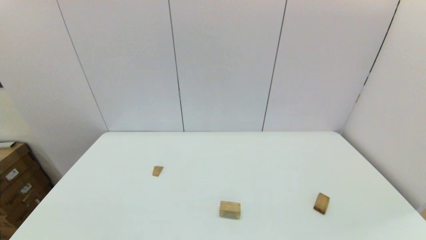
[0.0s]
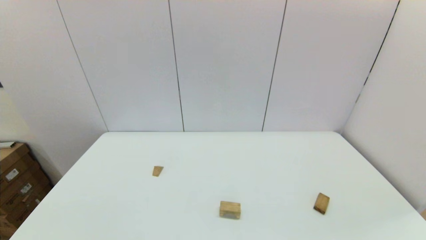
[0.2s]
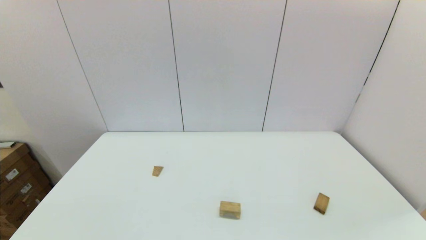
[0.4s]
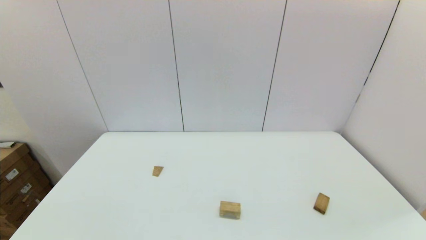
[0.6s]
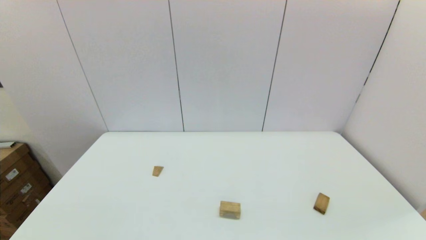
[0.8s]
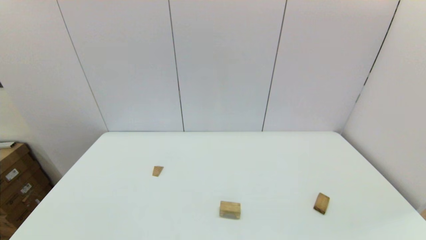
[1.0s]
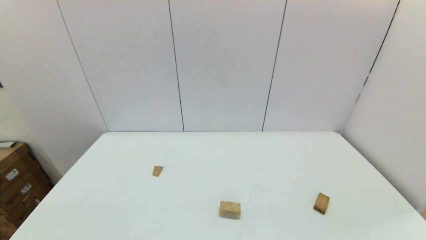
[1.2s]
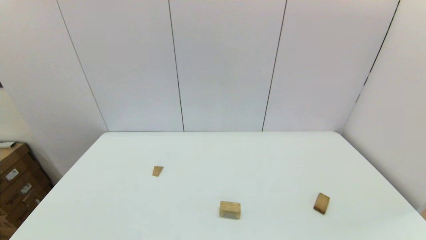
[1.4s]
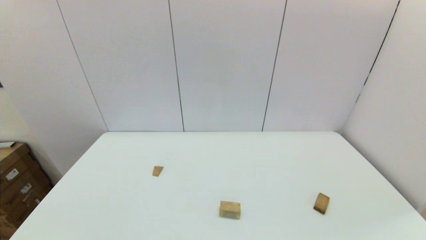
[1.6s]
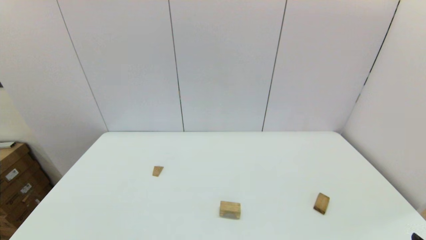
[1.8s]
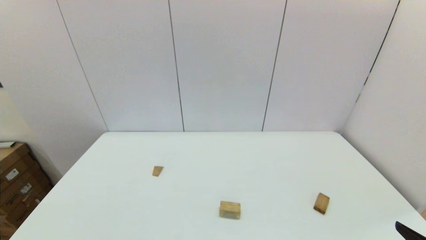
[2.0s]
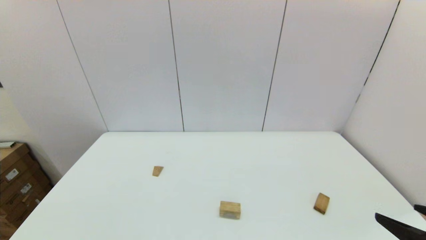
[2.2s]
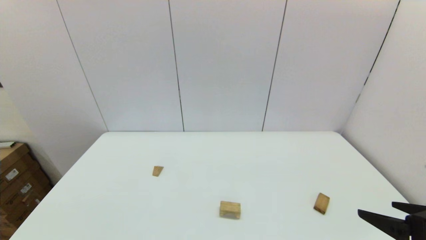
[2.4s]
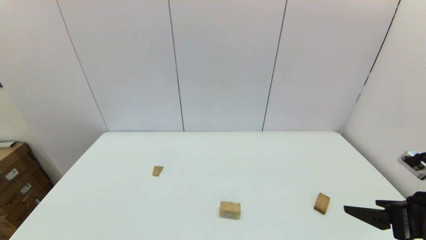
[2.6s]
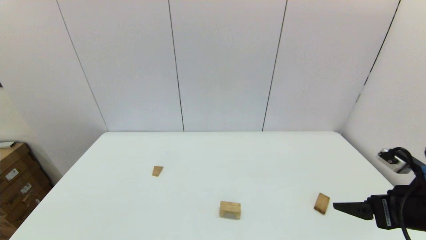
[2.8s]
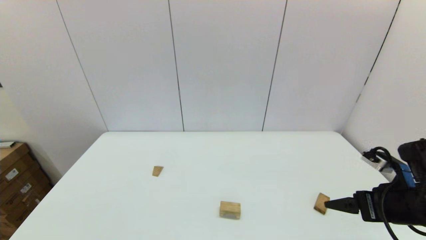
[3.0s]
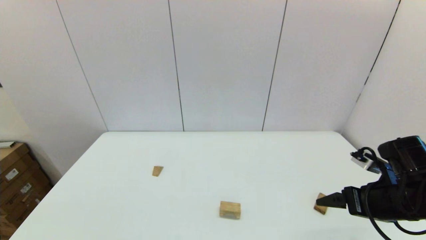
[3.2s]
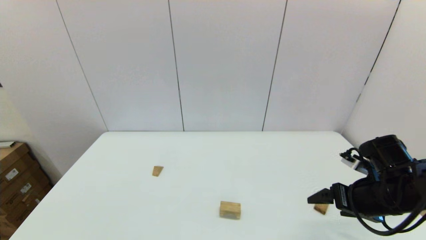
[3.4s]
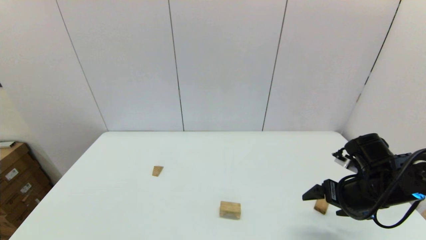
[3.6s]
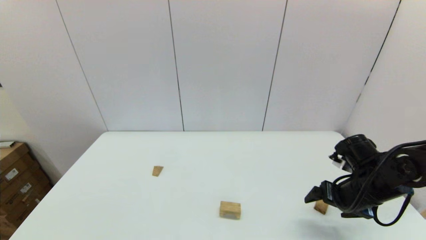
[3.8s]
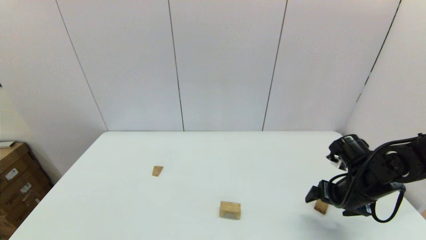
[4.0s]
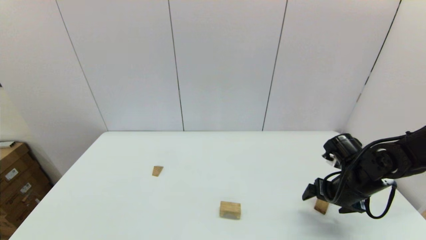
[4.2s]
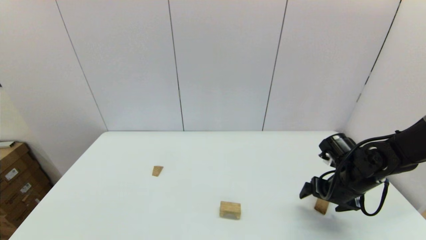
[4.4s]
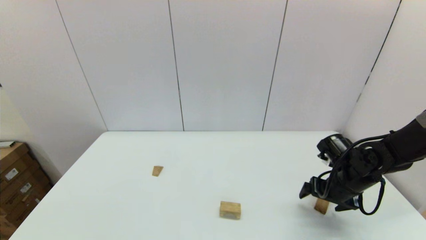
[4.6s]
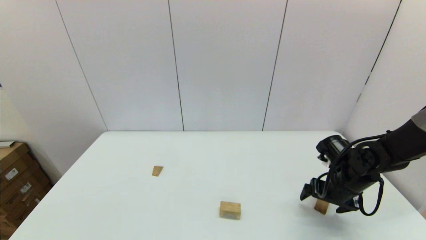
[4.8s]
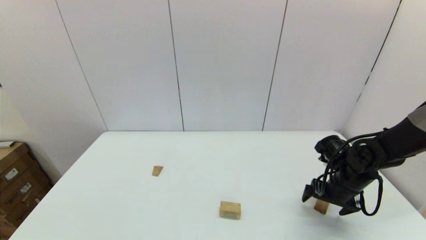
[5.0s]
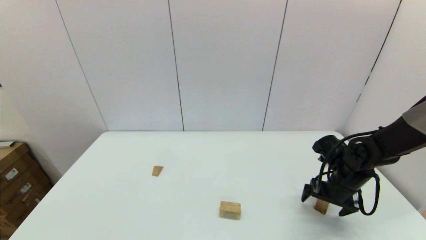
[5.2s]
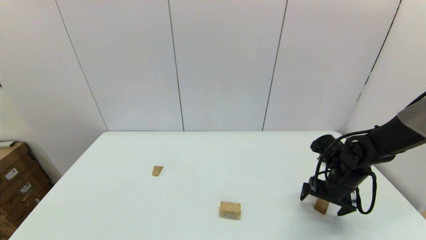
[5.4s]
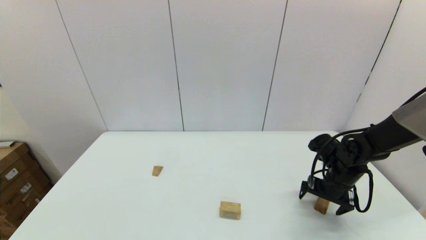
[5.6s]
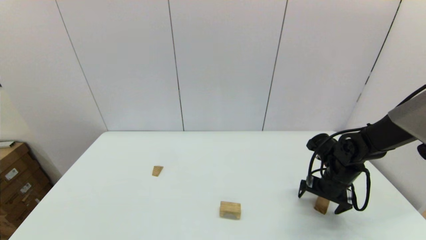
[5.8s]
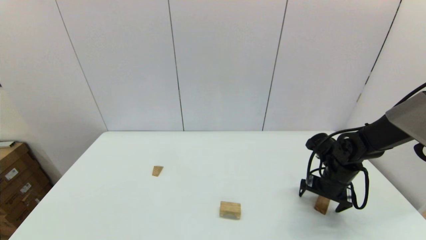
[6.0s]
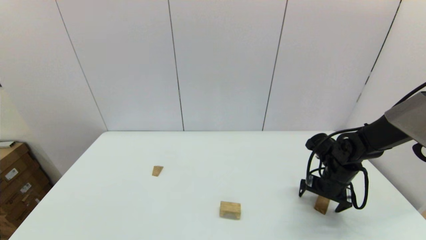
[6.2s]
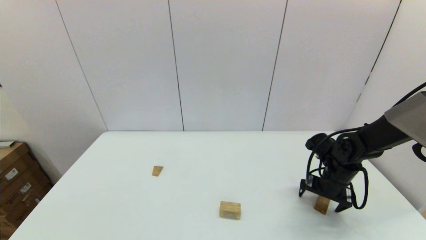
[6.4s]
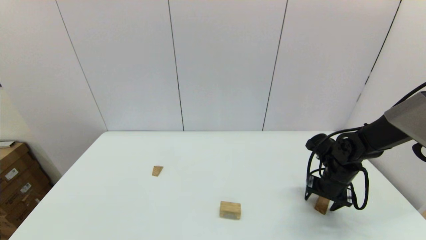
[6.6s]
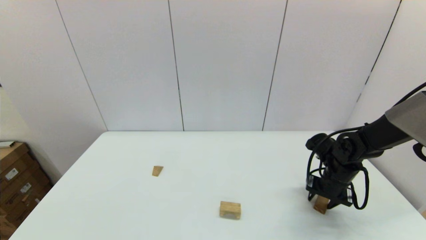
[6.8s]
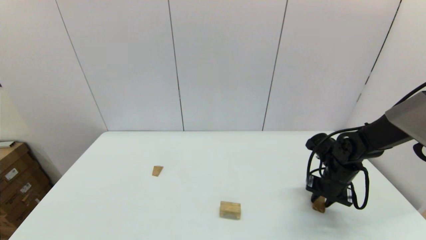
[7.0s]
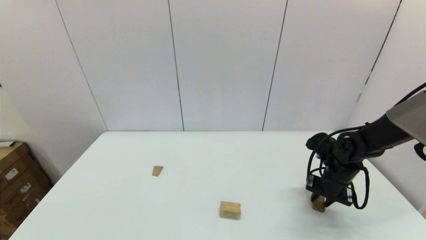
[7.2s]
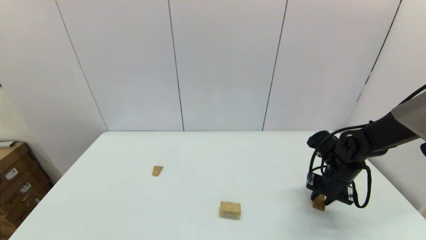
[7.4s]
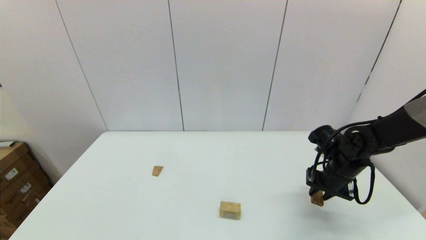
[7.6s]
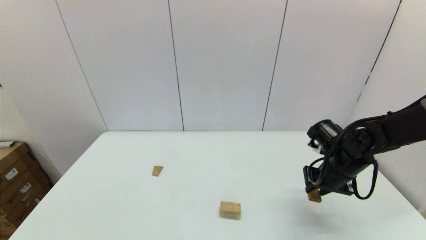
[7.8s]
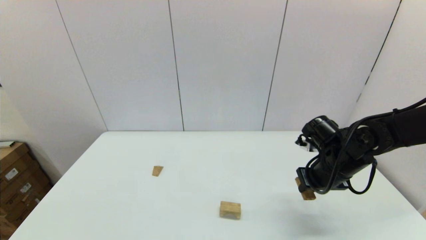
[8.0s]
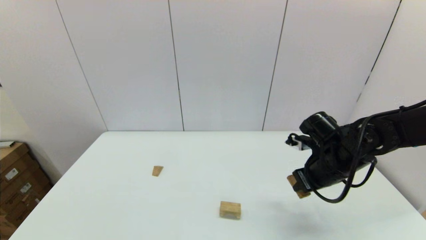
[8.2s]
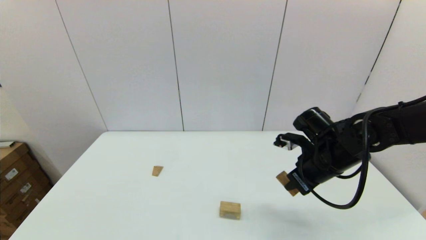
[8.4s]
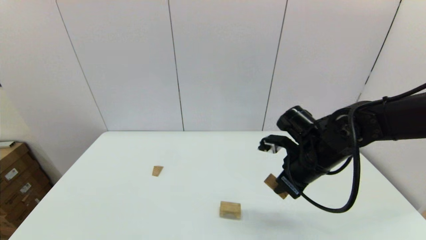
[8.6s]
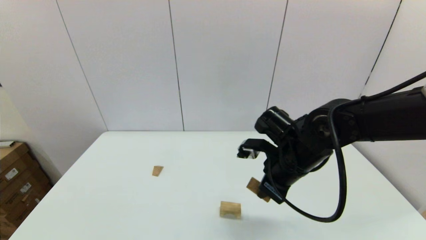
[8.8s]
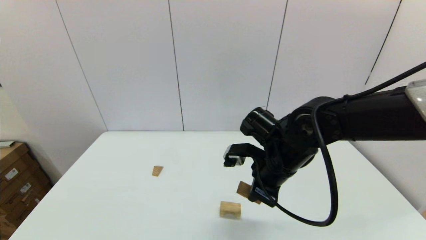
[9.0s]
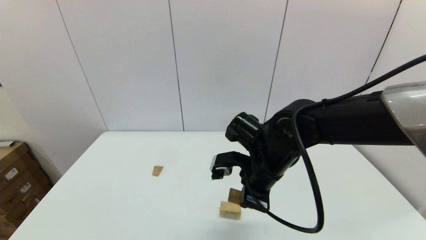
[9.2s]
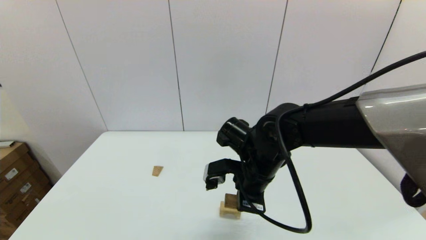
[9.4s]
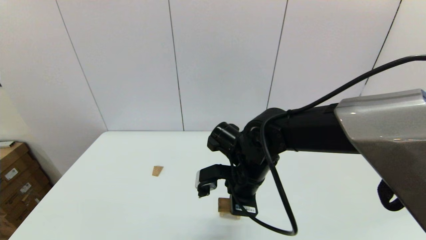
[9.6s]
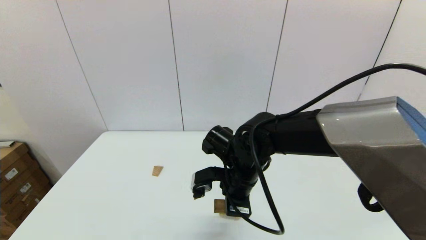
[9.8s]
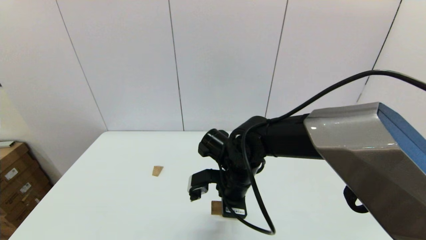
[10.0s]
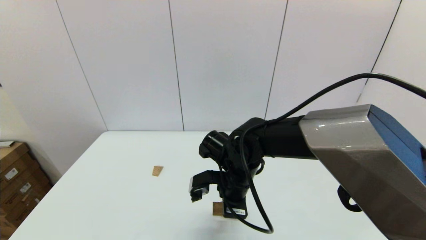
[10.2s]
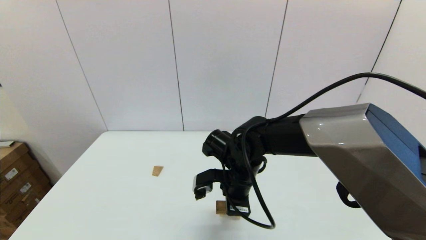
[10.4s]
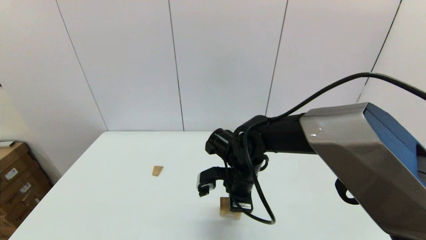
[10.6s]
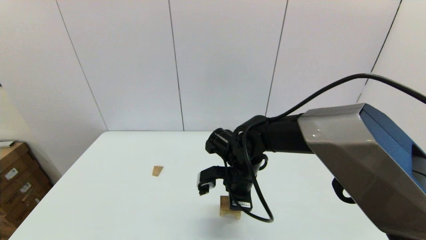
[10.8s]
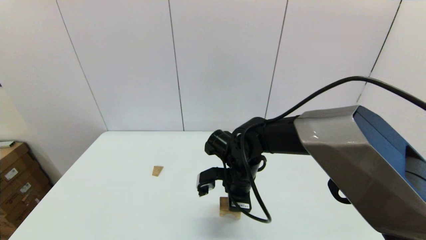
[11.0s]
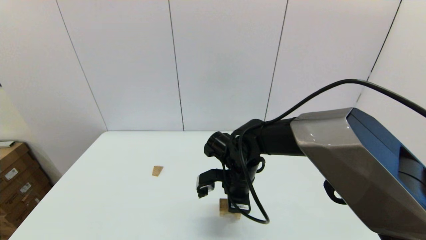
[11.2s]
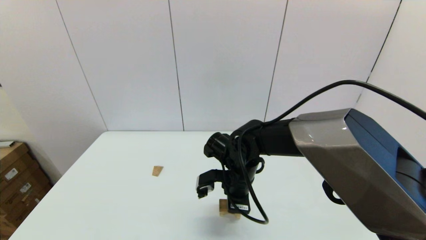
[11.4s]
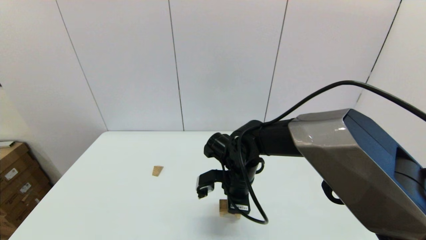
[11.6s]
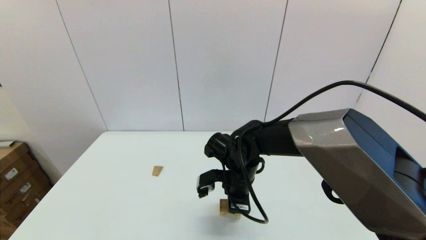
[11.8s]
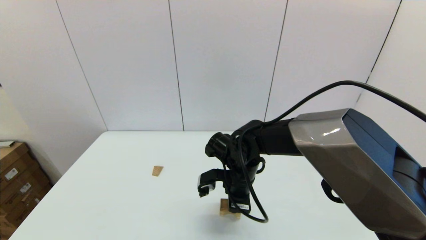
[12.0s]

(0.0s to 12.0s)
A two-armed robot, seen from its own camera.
Task of the whole recording: place the arched building blocks in the center of the table, set up the rectangular building blocks, and then set up the triangular building blocks.
Step, 0.0s - 7.0s: Grasp the box-shaped block with the right gripper.
1.6s - 3.0s: The right gripper travels forward by roughly 20 cm.
3.0s - 4.4s: The right gripper goes approximately 15 cm forward and downward.
4.4s - 6.0s: The grippers make only small movements.
6.0s - 7.6s: The right gripper closes its fingers.
7.6s - 9.0s: The right gripper shifts approximately 20 cm to the left and upward.
9.0s - 10.4s: The right gripper travels to the left and downward by about 10 cm.
10.4s - 12.0s: The grippers make only small movements.

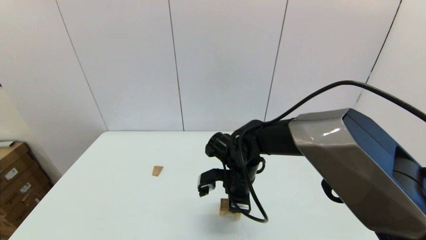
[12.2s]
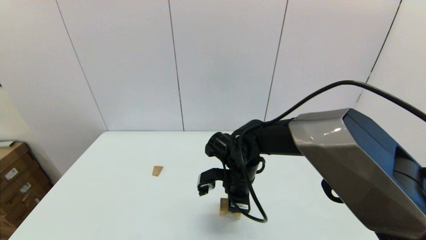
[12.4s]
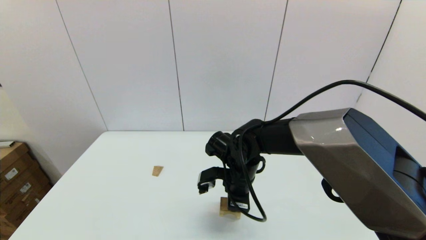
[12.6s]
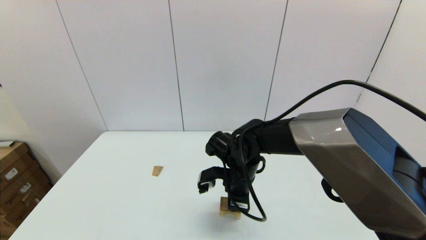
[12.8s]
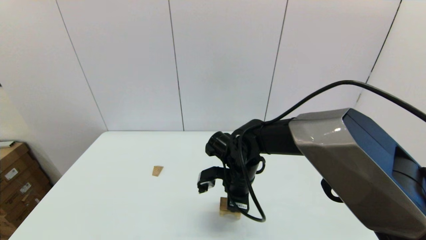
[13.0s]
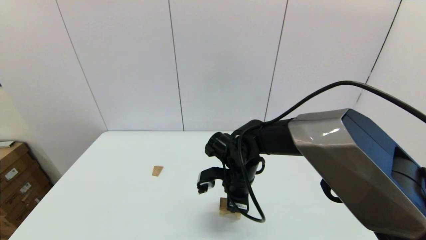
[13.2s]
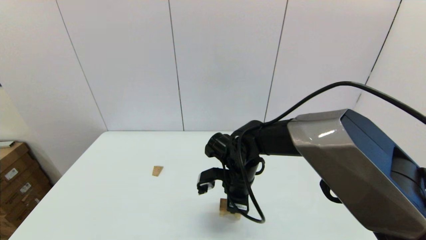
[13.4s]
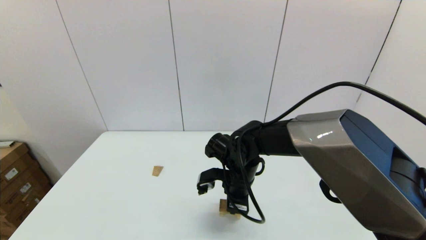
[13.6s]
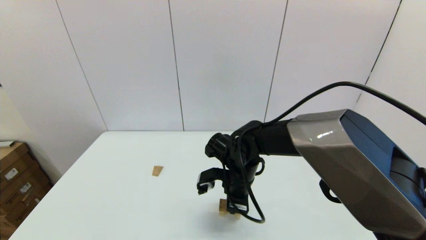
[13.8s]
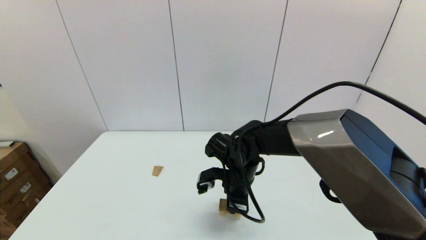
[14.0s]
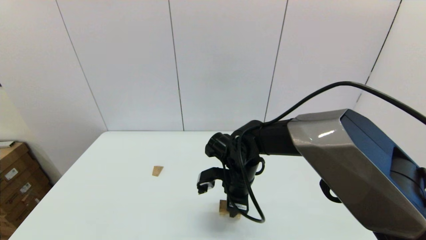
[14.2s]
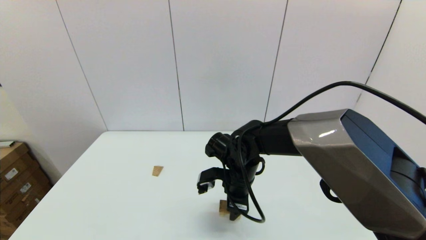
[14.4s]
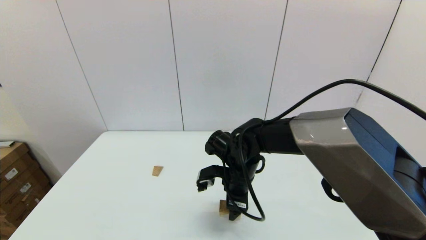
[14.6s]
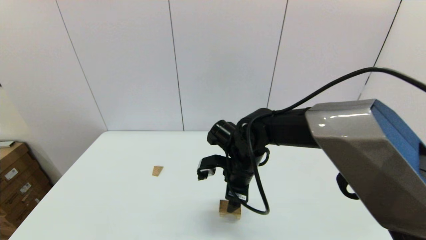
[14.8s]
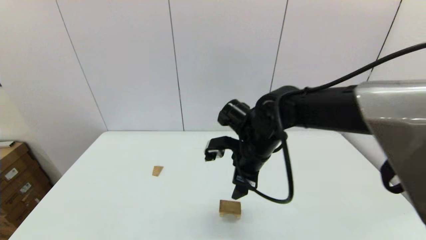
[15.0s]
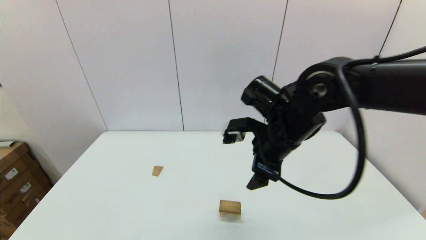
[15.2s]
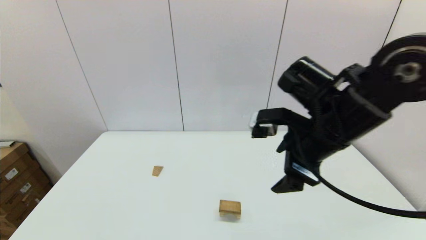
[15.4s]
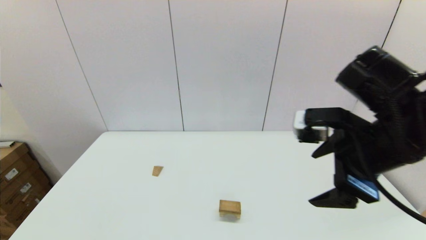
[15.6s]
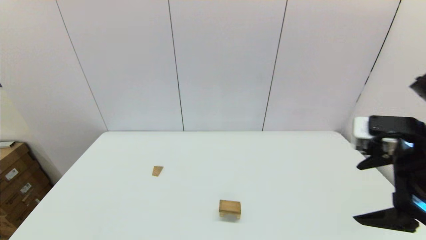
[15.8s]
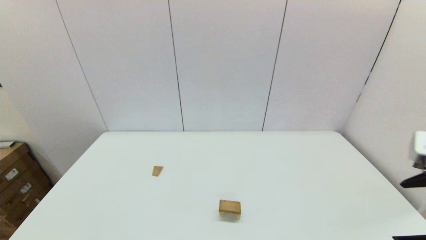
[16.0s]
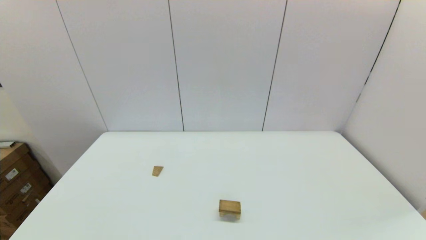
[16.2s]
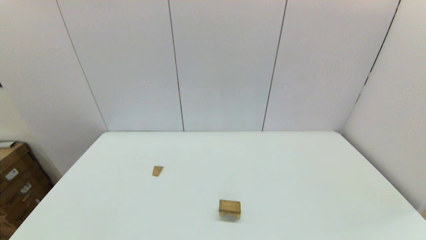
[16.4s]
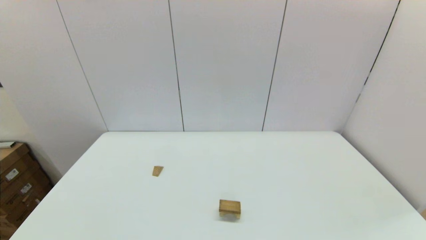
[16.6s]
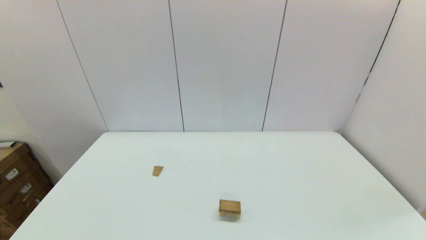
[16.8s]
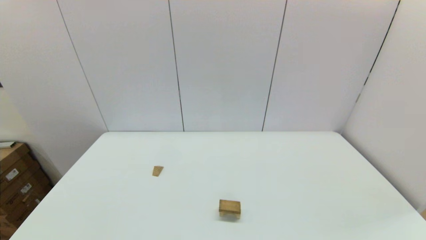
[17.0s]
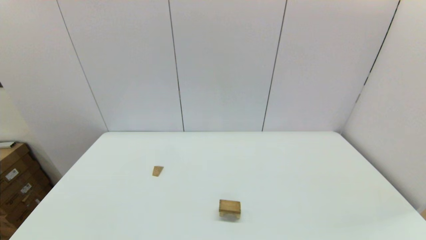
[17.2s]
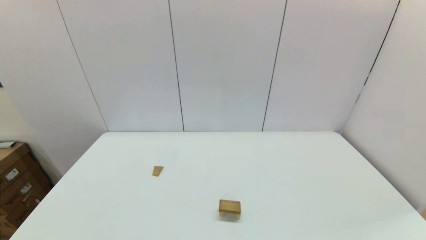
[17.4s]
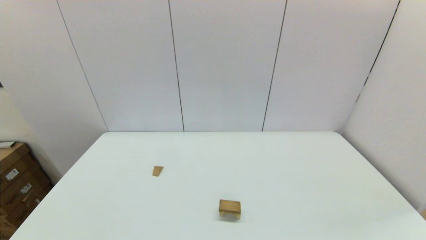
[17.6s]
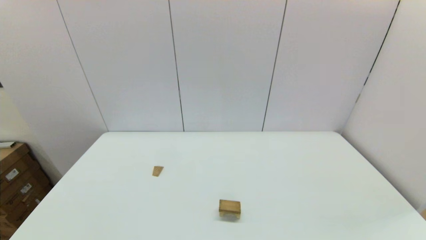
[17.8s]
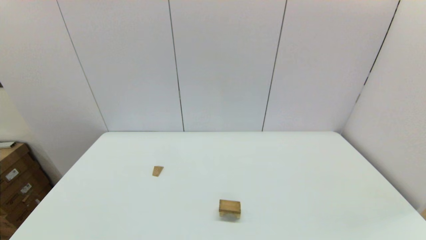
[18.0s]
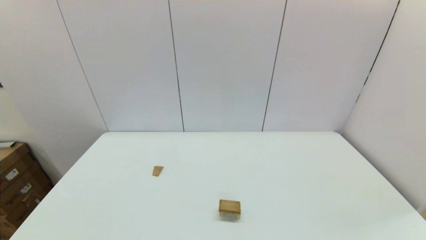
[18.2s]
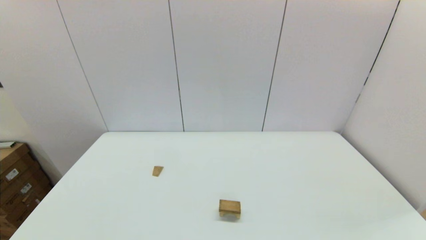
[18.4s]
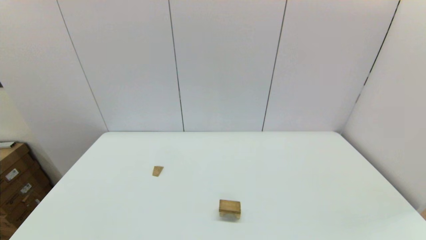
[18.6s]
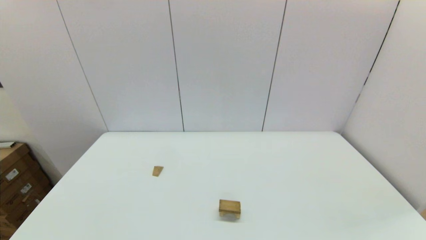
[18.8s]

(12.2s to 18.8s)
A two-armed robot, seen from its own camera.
Task of the whole recording: place the arched building blocks in the center of the table, set up the rectangular building blocks, and then set up the triangular building blocks.
12.2s - 13.8s: Neither gripper changes place.
13.8s - 15.4s: The right gripper travels upward, to the right and backward by about 20 cm, and opens its fingers.
15.4s - 17.2s: The right gripper shifts about 35 cm backward, to the right and downward.
